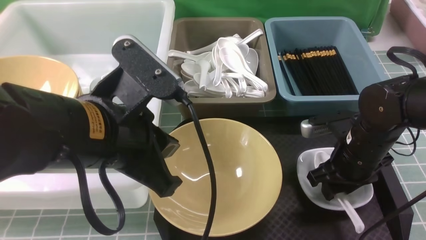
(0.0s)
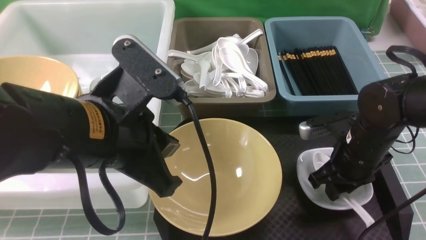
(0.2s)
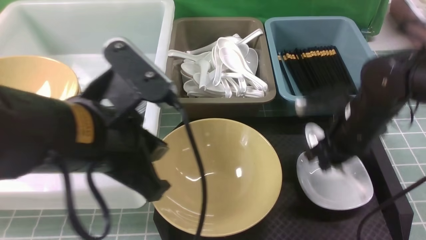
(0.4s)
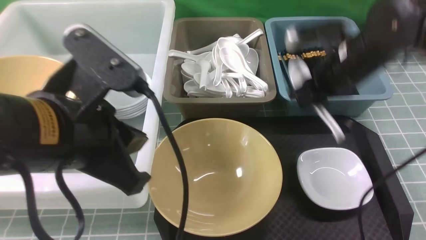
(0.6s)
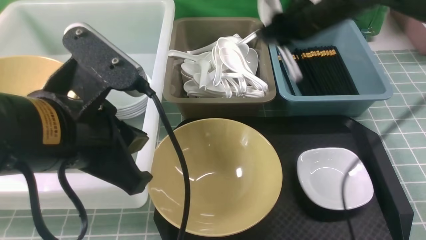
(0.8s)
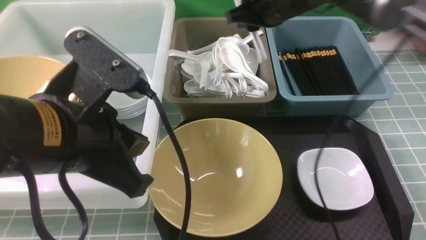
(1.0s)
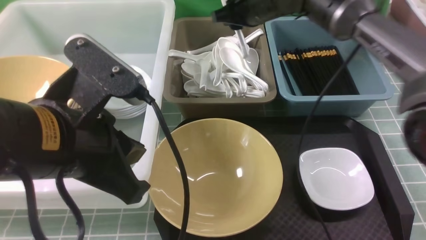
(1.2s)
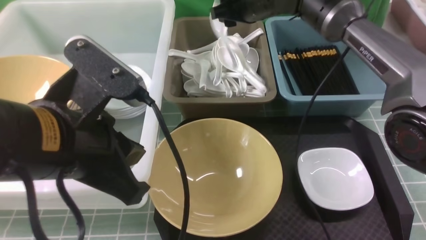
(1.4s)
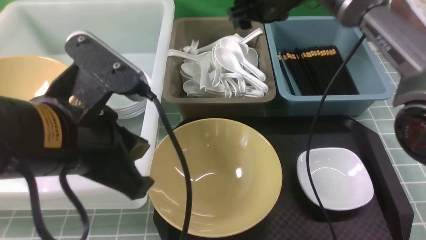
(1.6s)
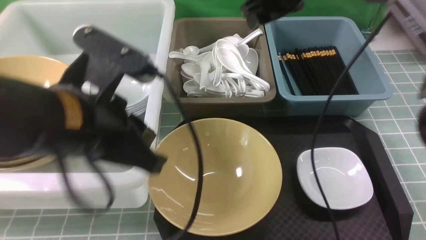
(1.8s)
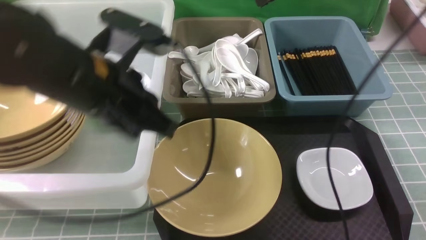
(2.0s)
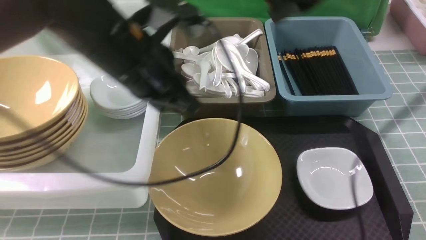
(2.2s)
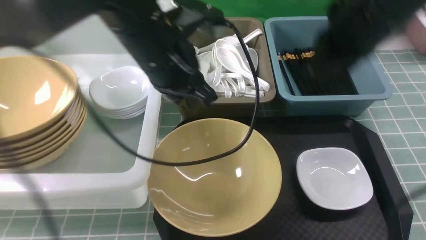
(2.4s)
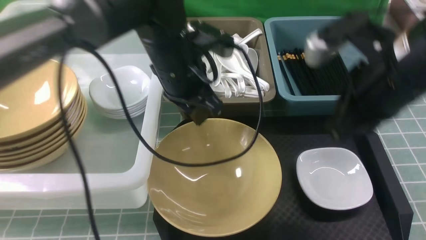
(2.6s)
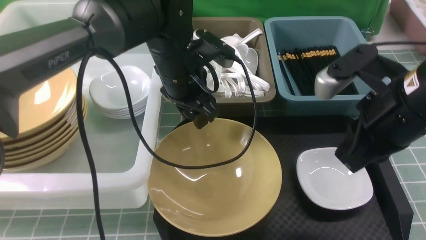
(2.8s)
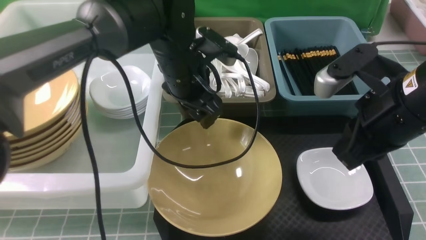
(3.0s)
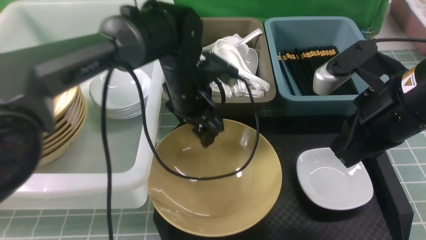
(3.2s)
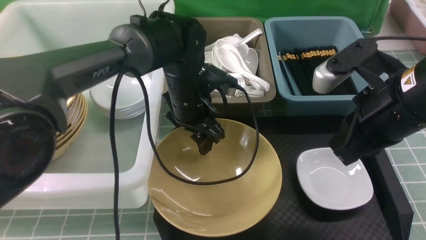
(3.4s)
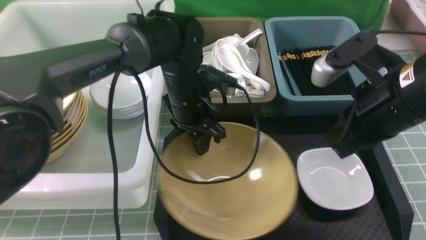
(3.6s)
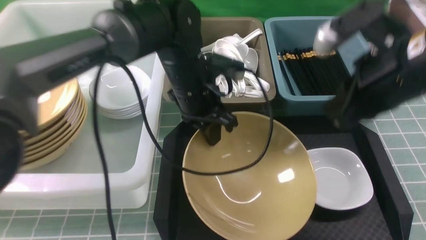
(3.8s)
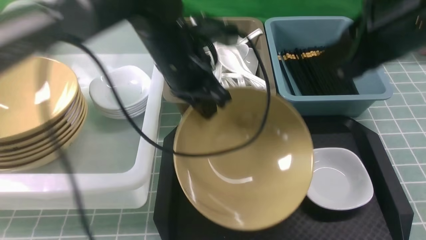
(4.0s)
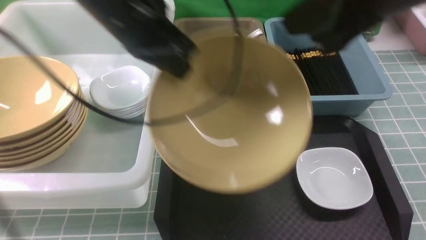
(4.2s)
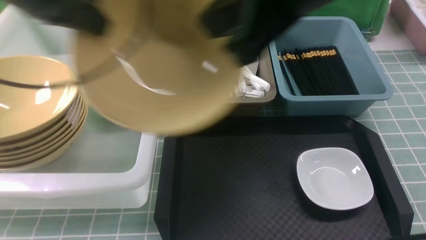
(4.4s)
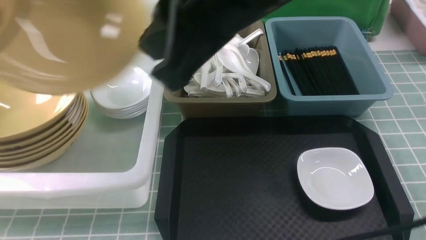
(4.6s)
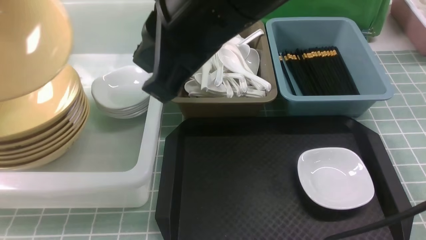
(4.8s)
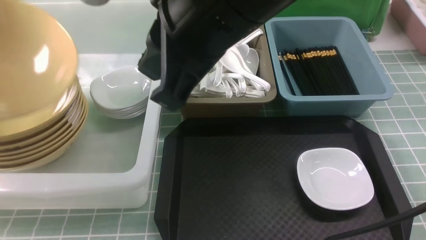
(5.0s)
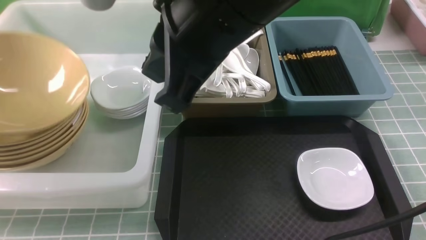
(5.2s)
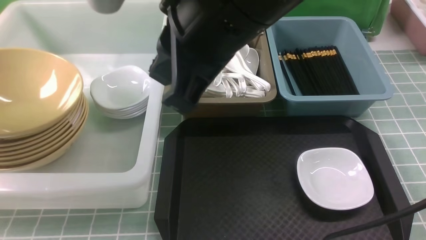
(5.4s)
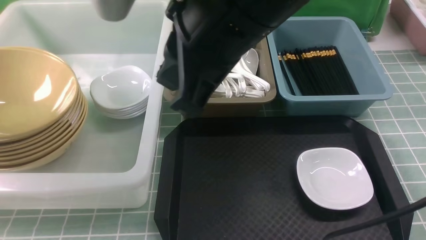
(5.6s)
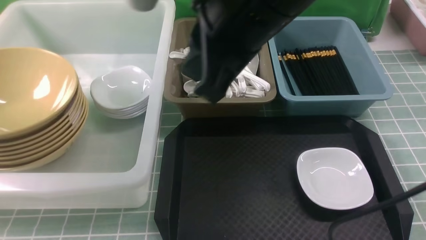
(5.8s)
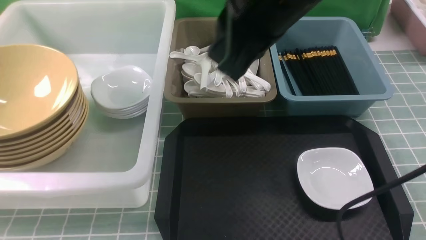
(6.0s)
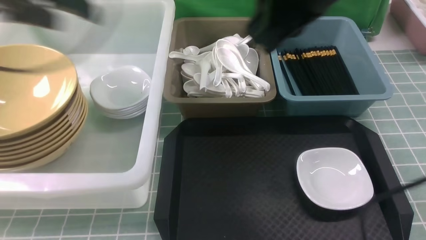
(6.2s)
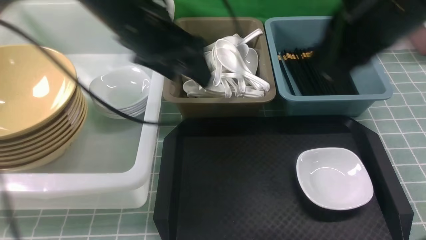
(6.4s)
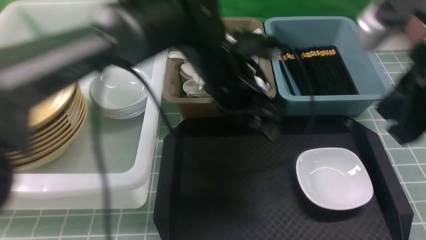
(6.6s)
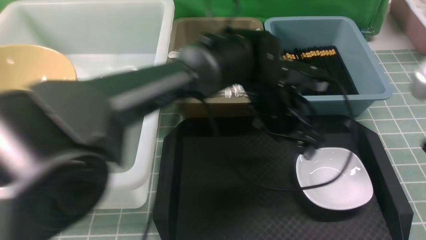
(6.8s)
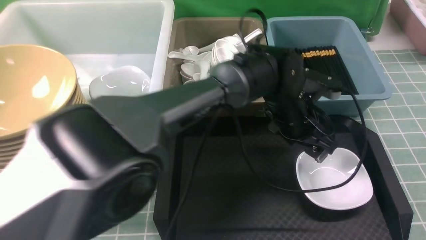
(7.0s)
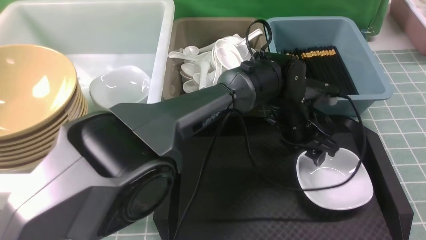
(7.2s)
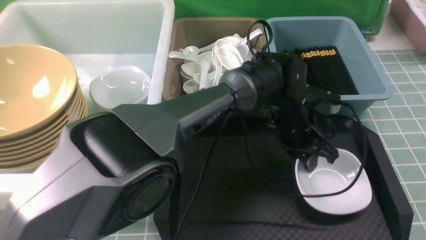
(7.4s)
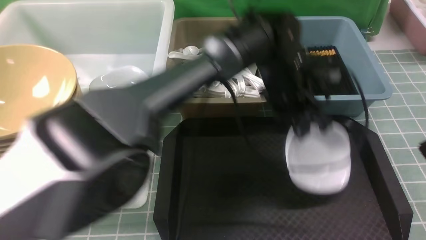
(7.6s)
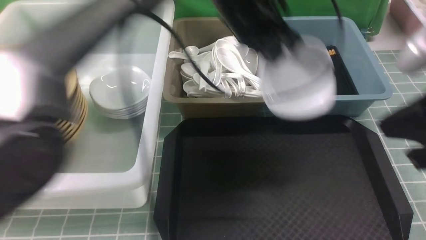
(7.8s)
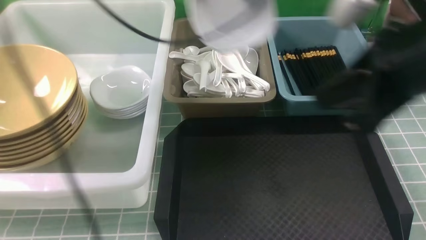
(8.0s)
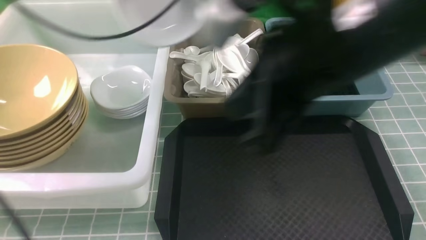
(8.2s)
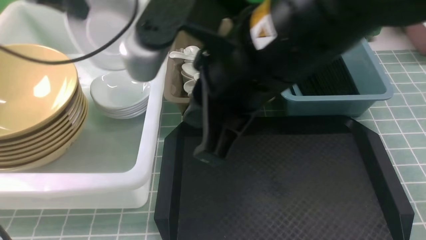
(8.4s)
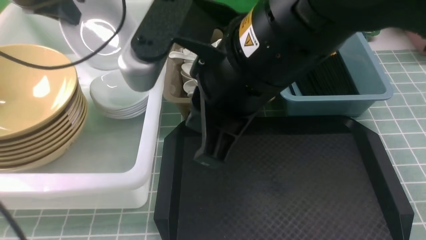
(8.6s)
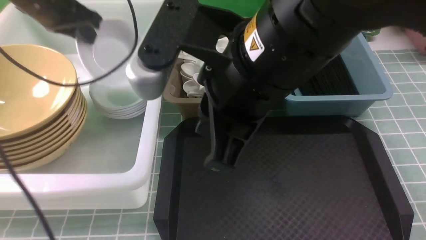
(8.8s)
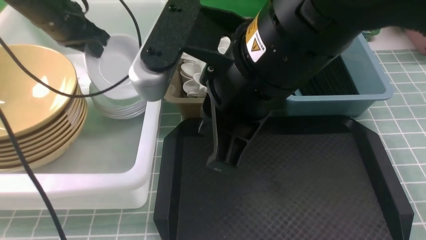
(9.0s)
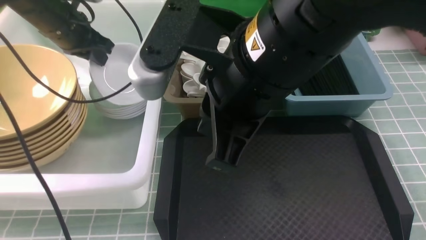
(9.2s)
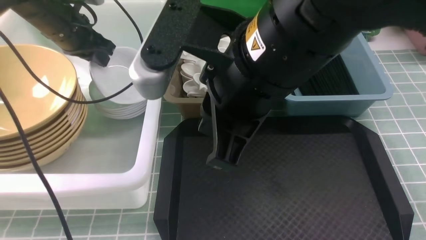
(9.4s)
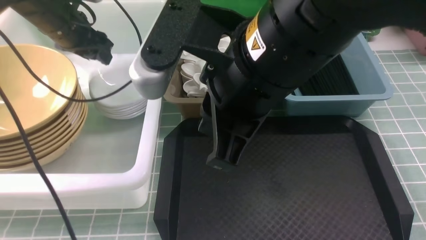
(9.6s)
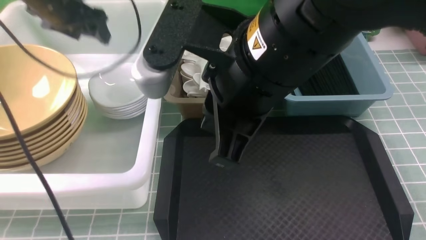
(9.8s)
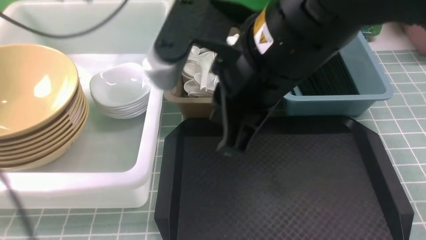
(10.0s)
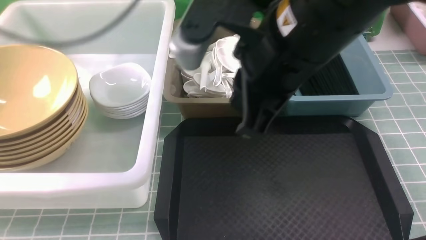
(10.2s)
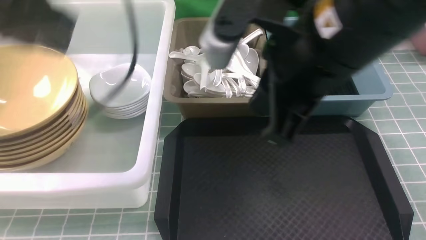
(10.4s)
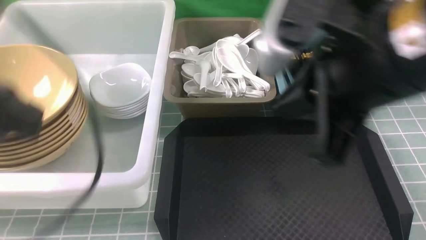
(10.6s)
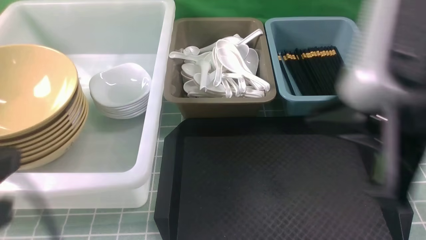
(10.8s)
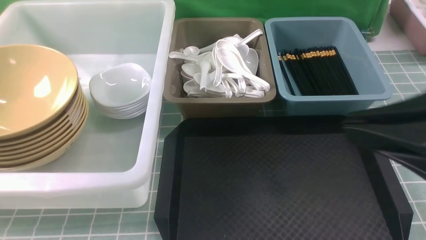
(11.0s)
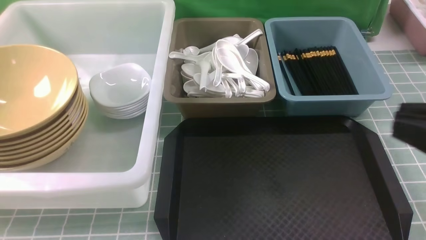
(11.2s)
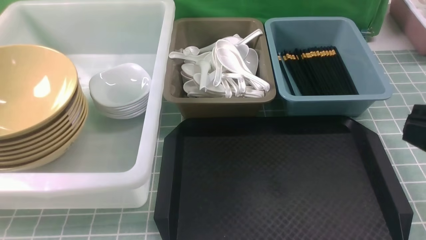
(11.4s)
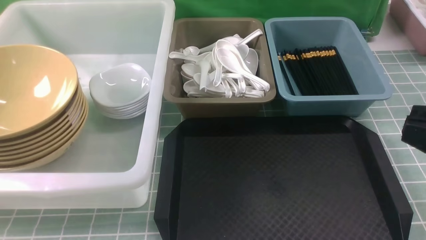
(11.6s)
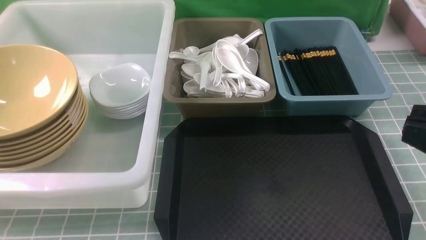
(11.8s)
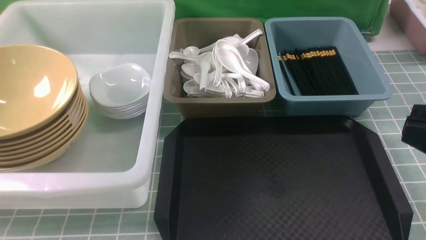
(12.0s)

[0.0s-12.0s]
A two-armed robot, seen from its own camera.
Task of the whole recording: on blue table put chopsticks spoon bowls plates into blue grey white boxes.
Step, 0.6s to 1.6s: use the right arm to put the soup spoon into the small storage box in the middle.
Step, 1.8s to 3.8s: use the left arm to grab the yellow noodle bowl on the left.
Step, 4.0s to 6.0s: use the left arm to put the noodle bowl into the large storage box on the left.
Step, 6.2s to 7.6s: use the left arm to grab the plate.
Step, 7.8s to 9.8s: use the left arm to put the plate into the large storage box on the left.
0.0s to 1.6s: The right gripper moves forward, upward and to the left, about 25 cm.
1.6s to 3.0s: The left gripper is displaced forward, downward and to the right by some 25 cm, and opens up. The right gripper moves backward, some 25 cm, and closes.
3.0s to 4.4s: The left gripper shifts some 25 cm to the left and upward, and closes up. The right gripper goes some 20 cm upward and to the left.
4.4s to 6.0s: The left gripper heads to the left, covering about 5 cm, and opens up.
6.0s to 7.6s: The right gripper goes roughly 20 cm to the right, backward and downward. The left gripper shifts roughly 40 cm to the right, and closes.
7.6s to 9.0s: The right gripper heads to the left, covering approximately 20 cm; the left gripper shifts about 35 cm to the left.
9.0s to 10.4s: The right gripper goes some 5 cm to the right; the left gripper heads backward and upward, covering some 25 cm, and opens and closes again.
10.4s to 12.0s: The right gripper heads to the right and backward, covering some 20 cm. Meanwhile the left gripper heads backward and downward, covering approximately 25 cm.

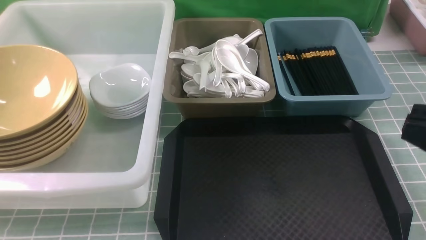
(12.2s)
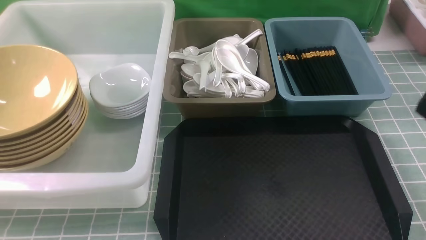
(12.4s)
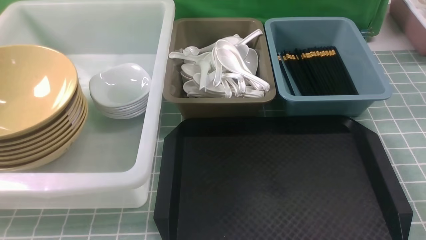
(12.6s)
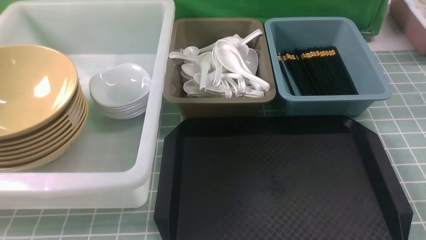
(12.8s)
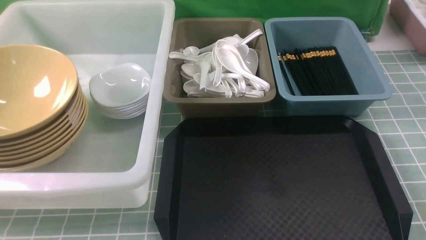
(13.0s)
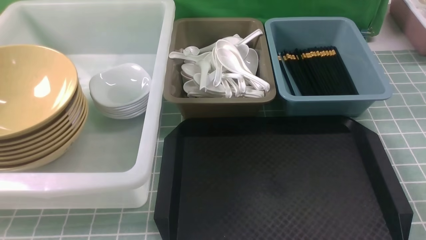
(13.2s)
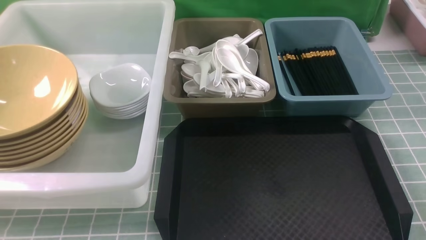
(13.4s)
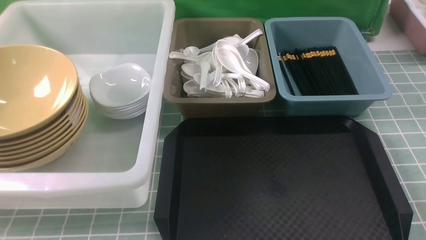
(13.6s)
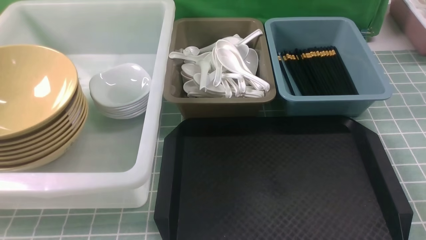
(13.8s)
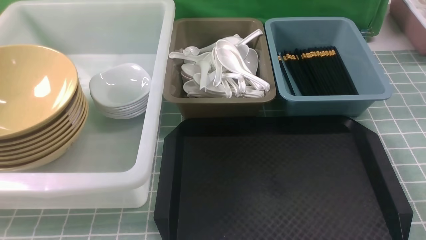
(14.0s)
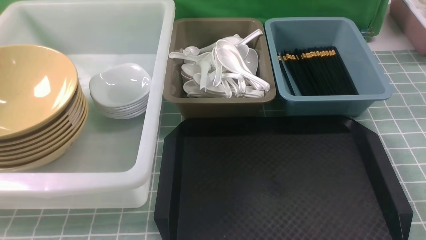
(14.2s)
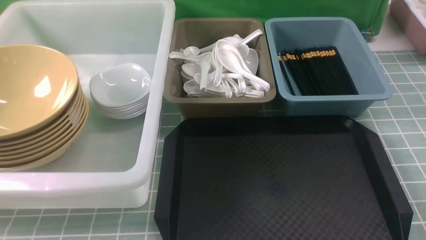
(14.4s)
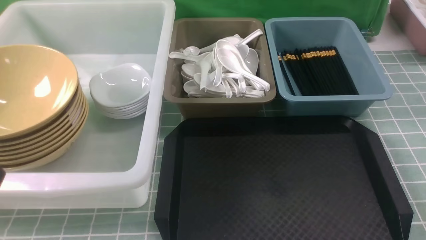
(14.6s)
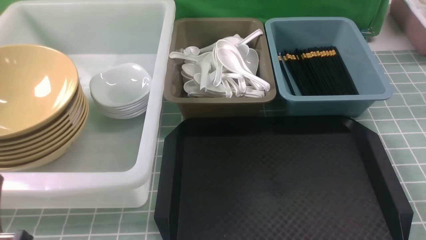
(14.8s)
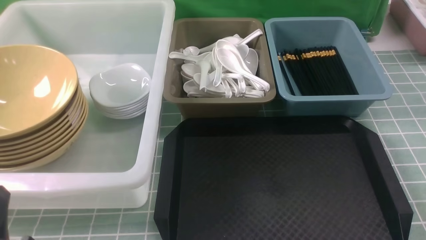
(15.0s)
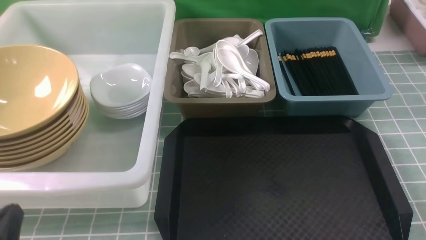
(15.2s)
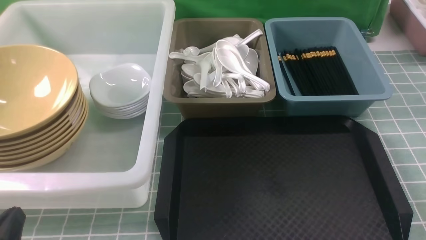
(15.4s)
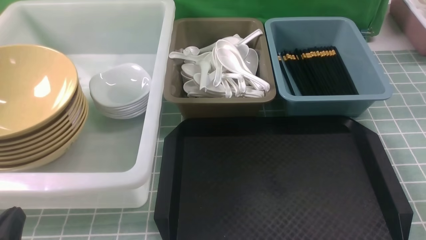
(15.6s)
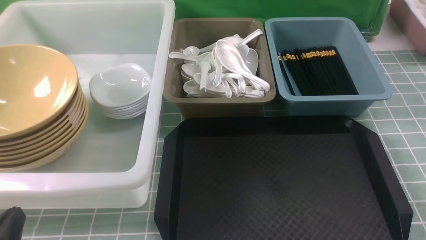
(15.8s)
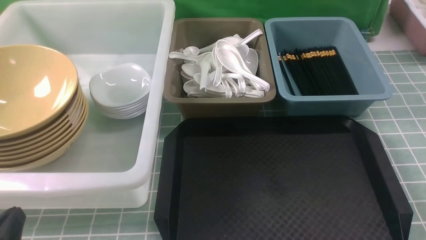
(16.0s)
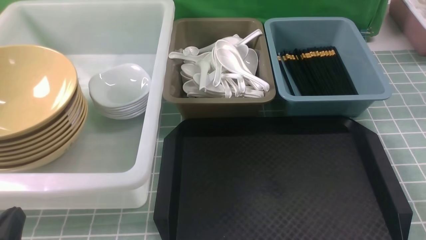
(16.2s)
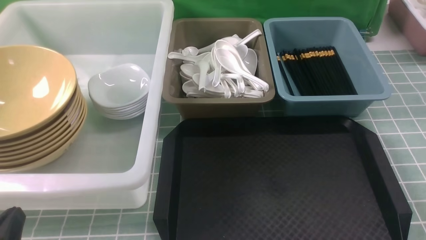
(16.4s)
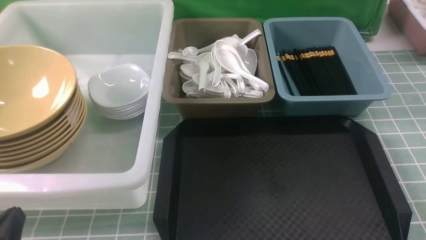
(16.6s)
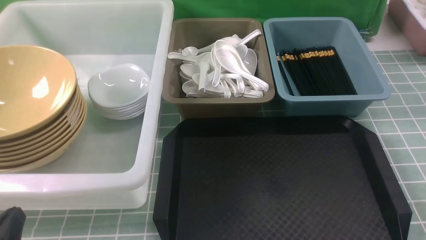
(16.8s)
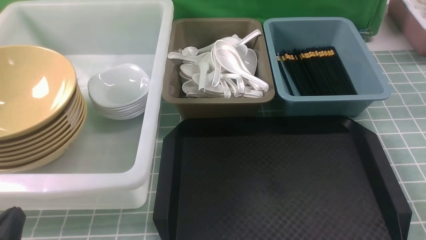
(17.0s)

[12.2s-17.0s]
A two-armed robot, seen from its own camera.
Task of the whole recording: on blue table put chopsticks spoon bowls plates into blue grey white boxes.
12.2s to 13.8s: The right gripper goes some 20 cm downward and to the right.
13.8s to 15.4s: The left gripper goes roughly 15 cm downward.
15.4s to 17.0s: Neither gripper changes place.
